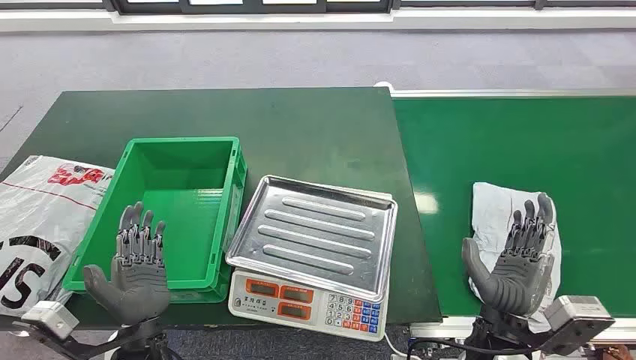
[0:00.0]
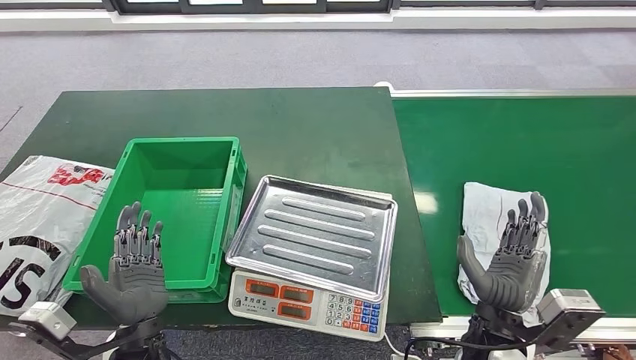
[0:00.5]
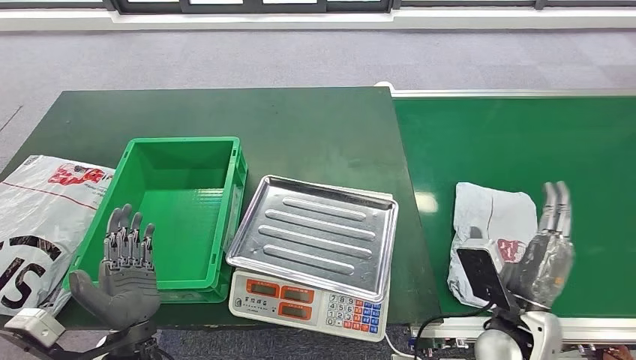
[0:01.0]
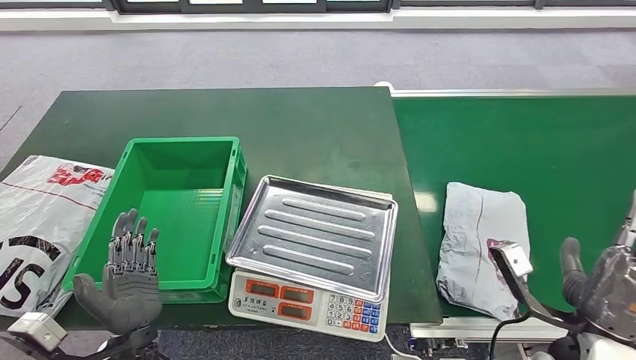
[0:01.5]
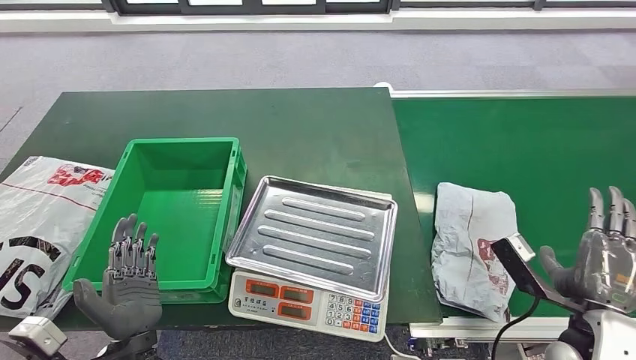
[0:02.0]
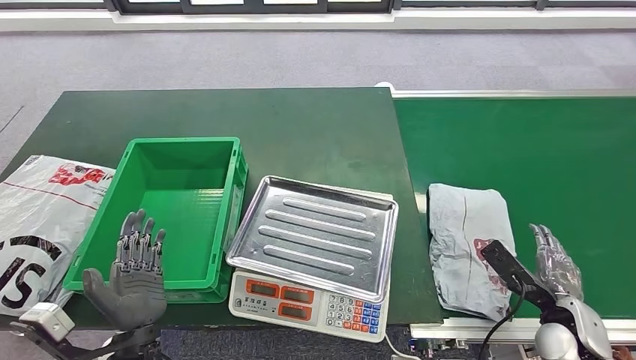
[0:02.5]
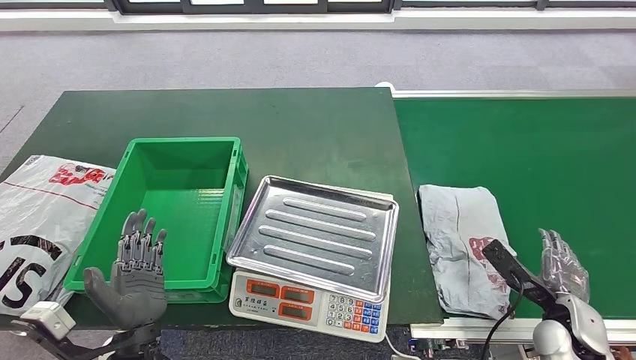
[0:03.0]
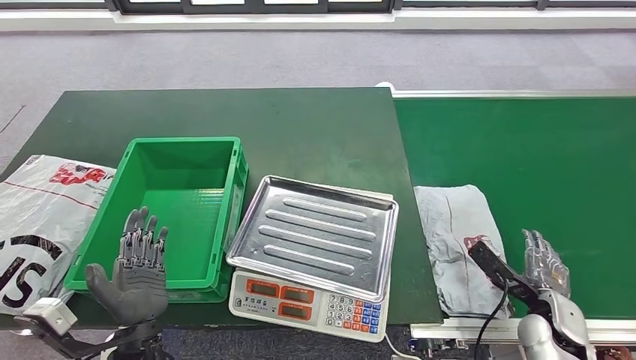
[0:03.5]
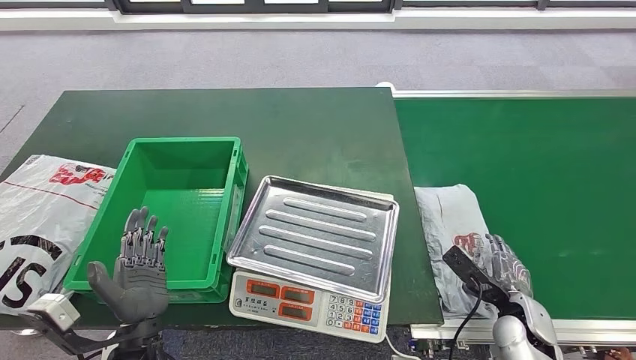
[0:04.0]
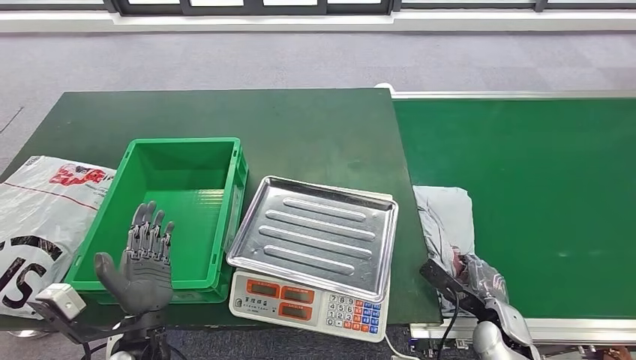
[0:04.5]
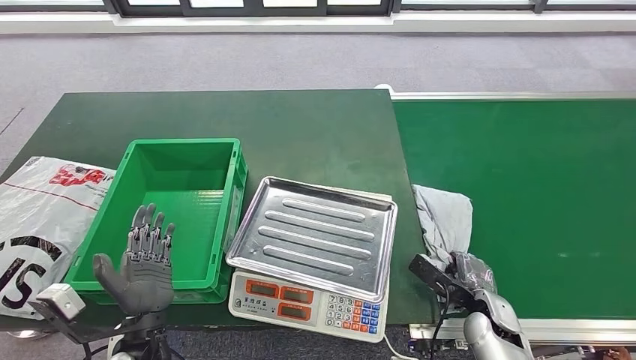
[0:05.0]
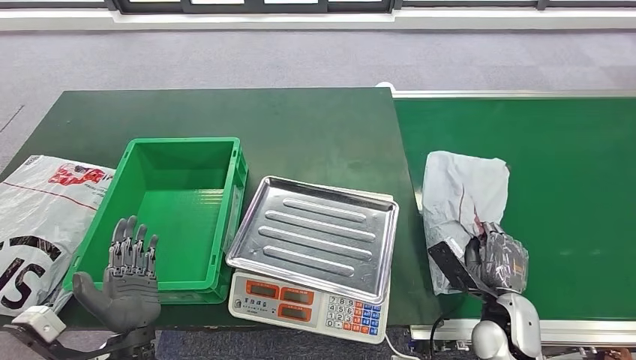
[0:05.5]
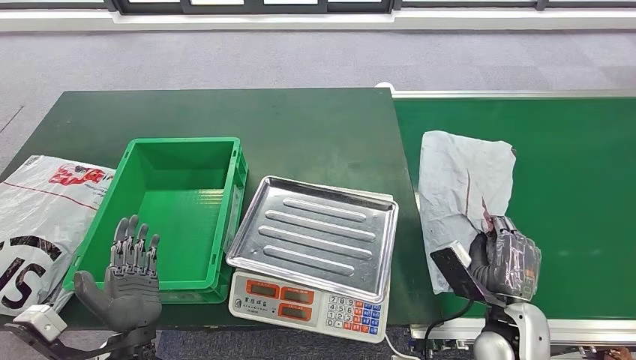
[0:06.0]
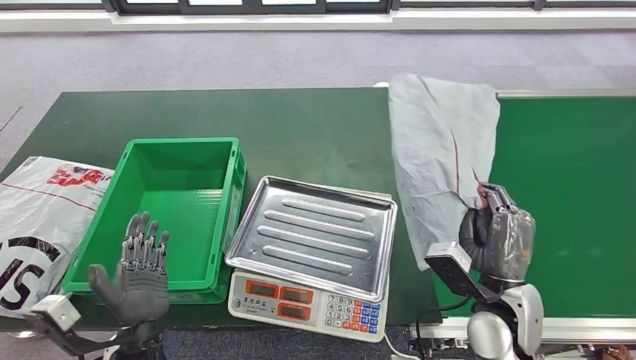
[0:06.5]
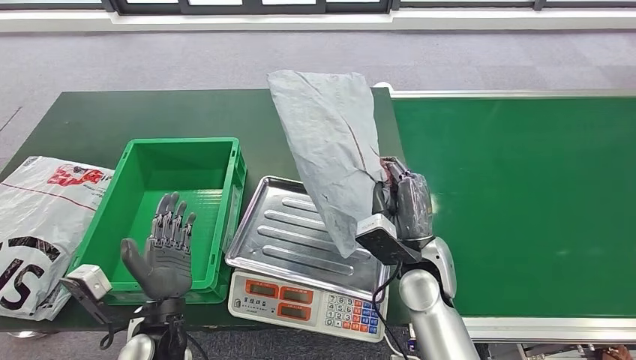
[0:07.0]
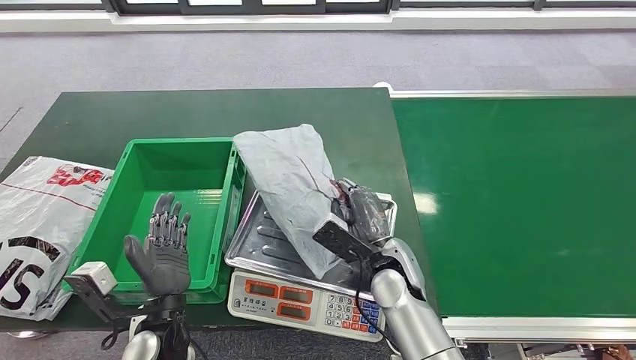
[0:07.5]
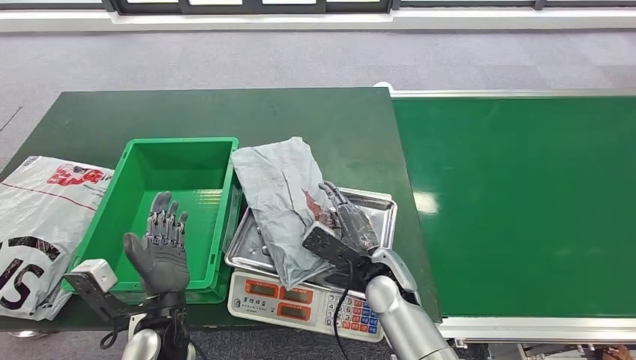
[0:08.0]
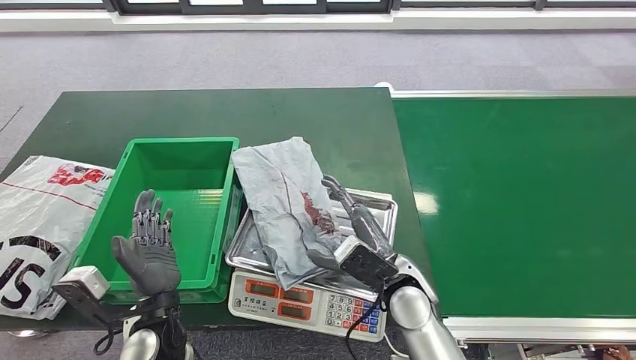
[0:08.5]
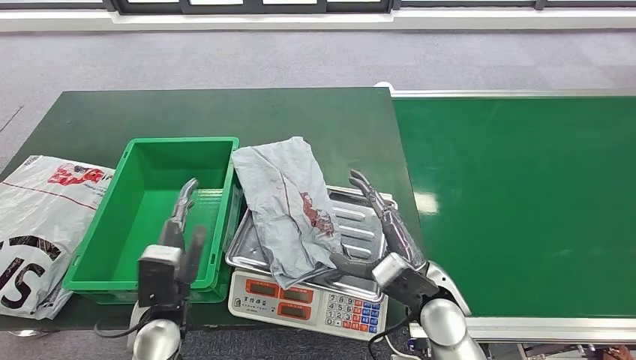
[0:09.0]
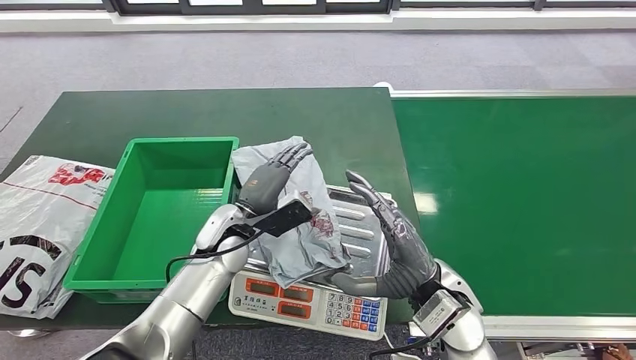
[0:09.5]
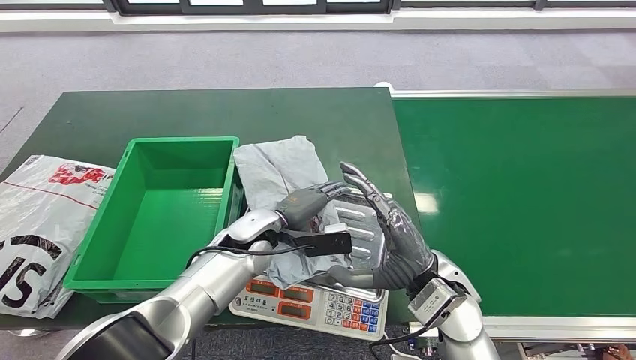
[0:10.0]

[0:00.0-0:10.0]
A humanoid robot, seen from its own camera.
Step, 0:00.0 to 0:06.0: Pick up the package from the conveyor belt.
Step, 0:06.5 to 0:08.5: Place the package onto the inbound machine.
0:02.0 to 0:04.0: The right hand is displaced downward by some 15 cm.
0:04.0 to 0:06.0: The right hand heads to the left and upward, covering some 10 cm.
0:08.0 to 0:10.0: The left hand is displaced forward and to the right by roughly 20 cm. Meanwhile the right hand shifts roughly 10 cm upward and to the right.

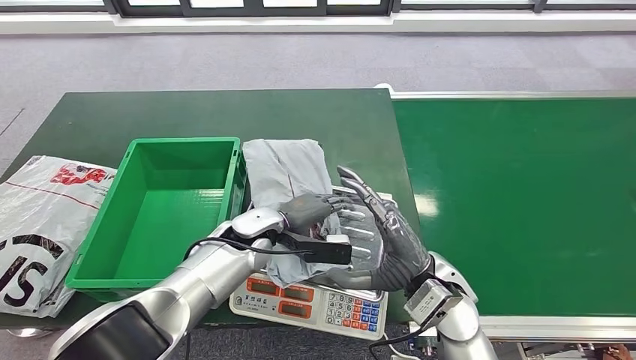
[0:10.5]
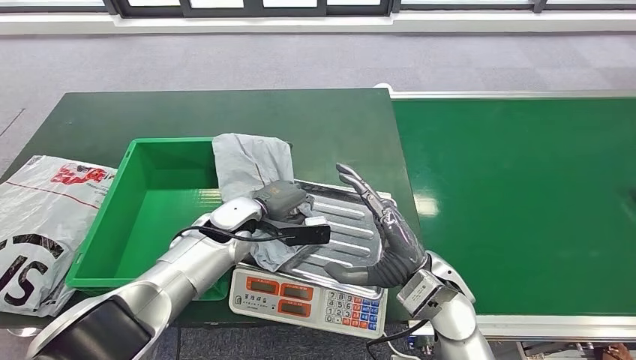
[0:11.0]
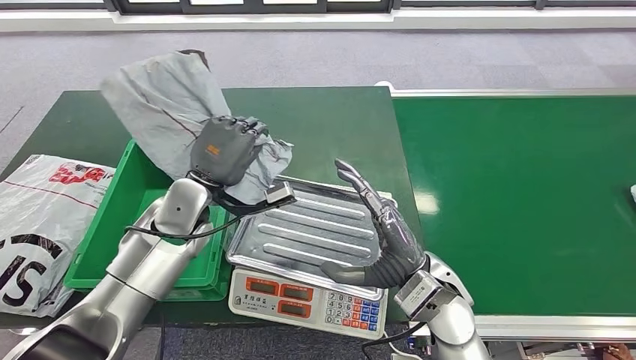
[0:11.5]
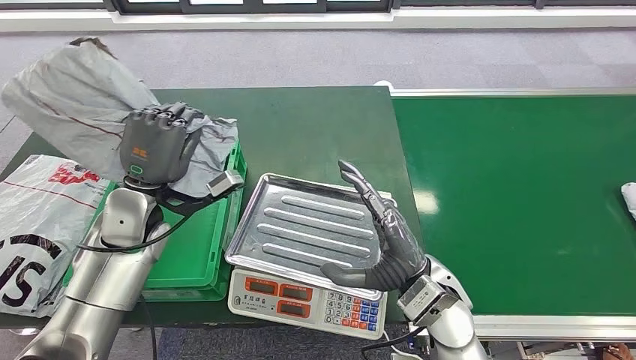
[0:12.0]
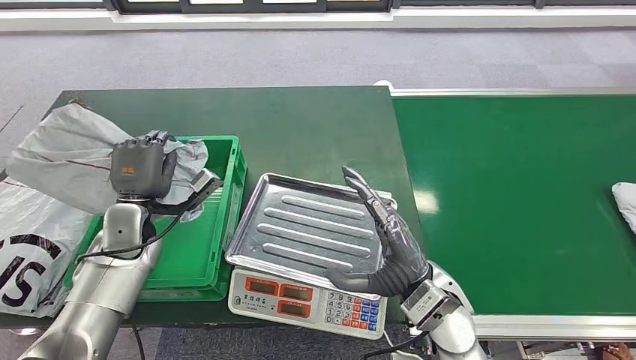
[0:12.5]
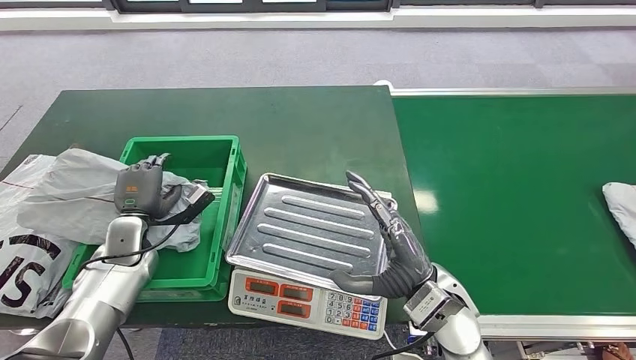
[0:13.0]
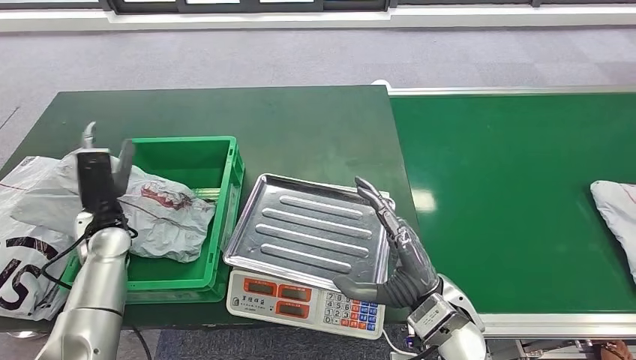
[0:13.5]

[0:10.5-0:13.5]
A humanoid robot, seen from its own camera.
Step, 0:12.0 to 0:13.5: Place the package into the parcel locker.
